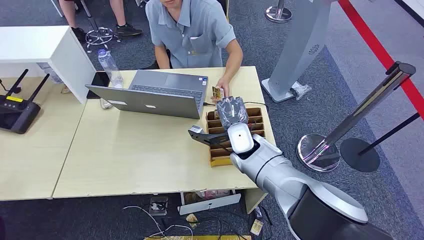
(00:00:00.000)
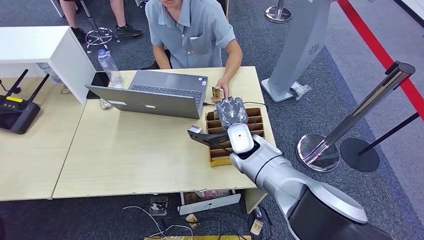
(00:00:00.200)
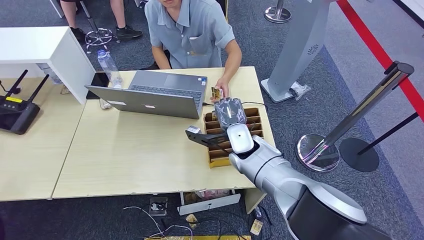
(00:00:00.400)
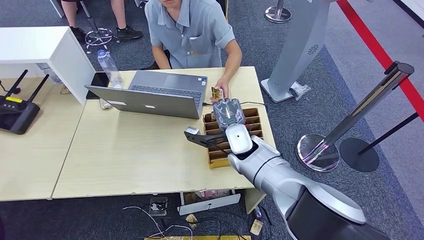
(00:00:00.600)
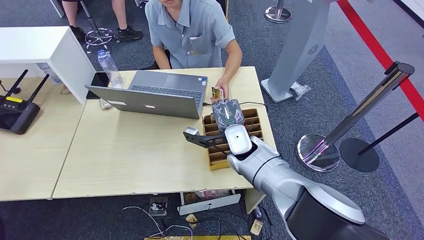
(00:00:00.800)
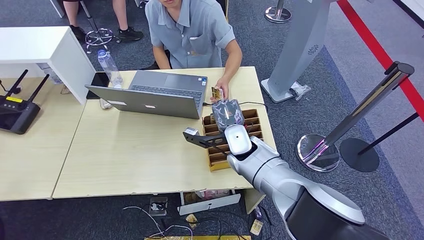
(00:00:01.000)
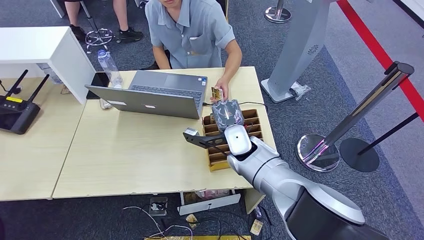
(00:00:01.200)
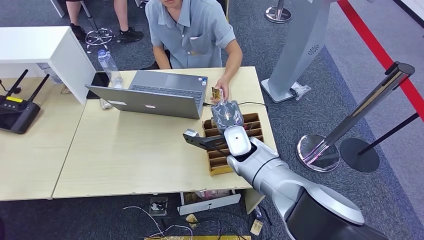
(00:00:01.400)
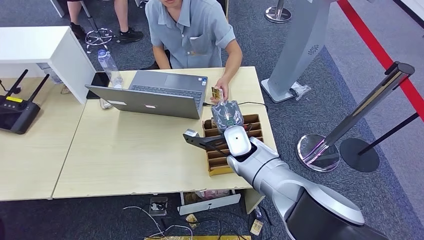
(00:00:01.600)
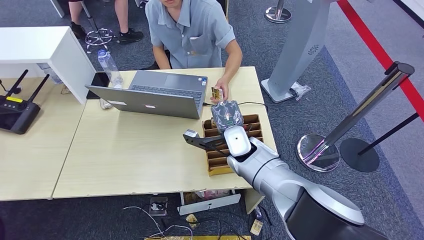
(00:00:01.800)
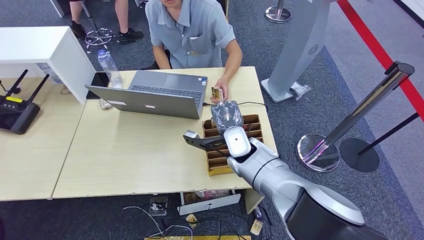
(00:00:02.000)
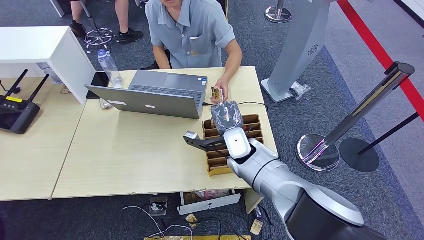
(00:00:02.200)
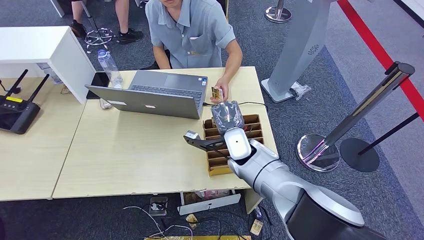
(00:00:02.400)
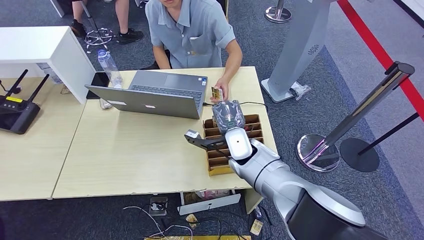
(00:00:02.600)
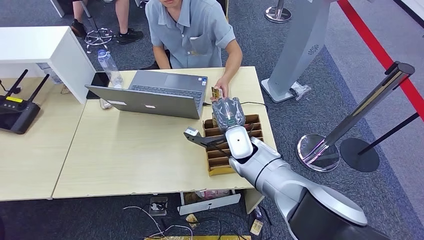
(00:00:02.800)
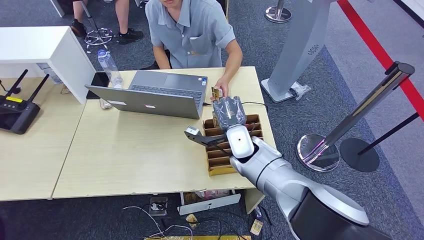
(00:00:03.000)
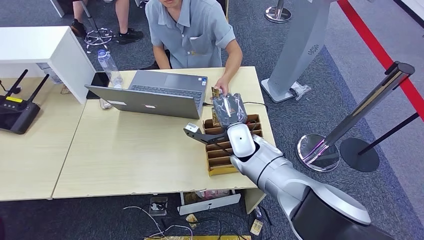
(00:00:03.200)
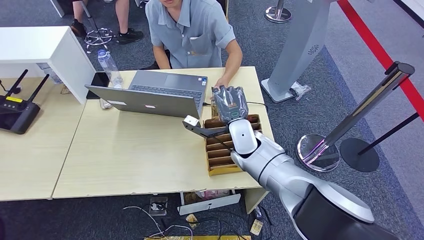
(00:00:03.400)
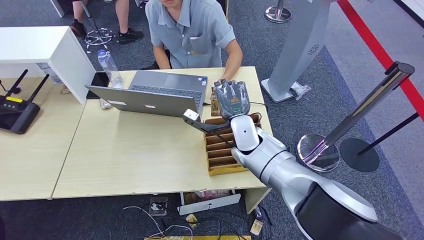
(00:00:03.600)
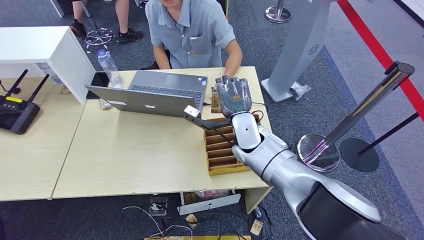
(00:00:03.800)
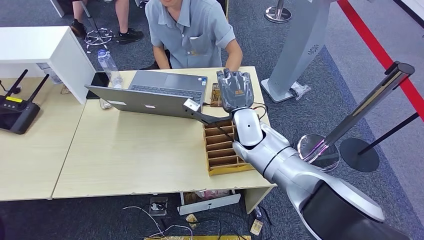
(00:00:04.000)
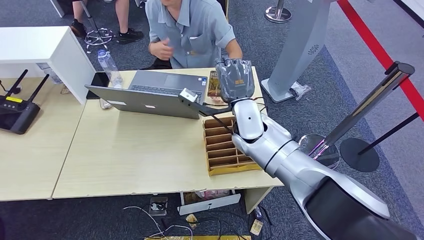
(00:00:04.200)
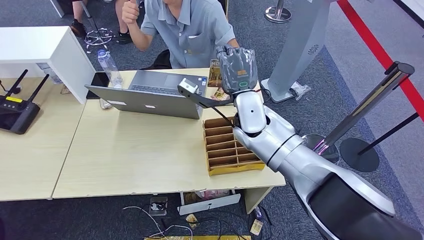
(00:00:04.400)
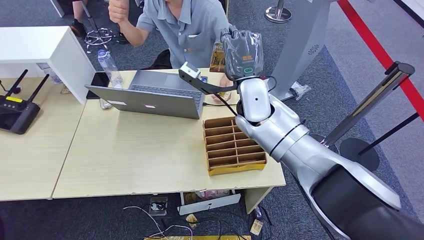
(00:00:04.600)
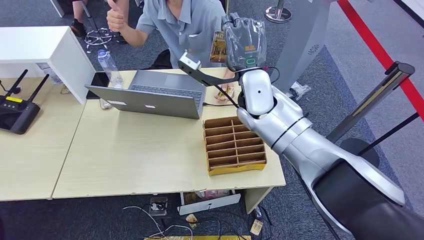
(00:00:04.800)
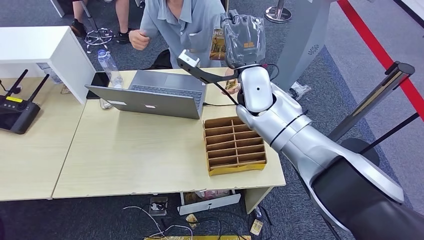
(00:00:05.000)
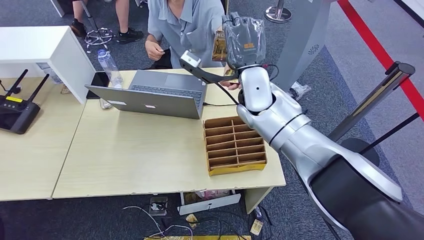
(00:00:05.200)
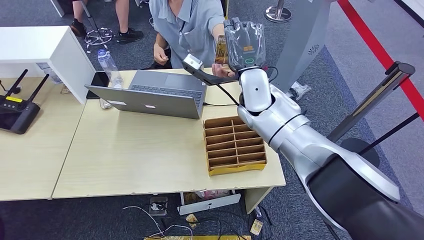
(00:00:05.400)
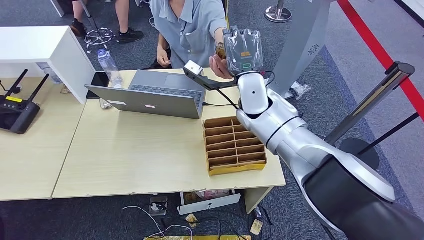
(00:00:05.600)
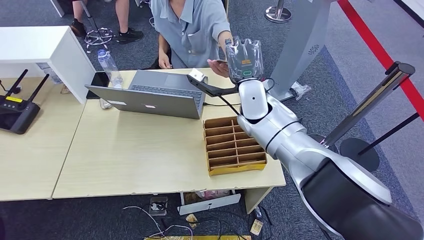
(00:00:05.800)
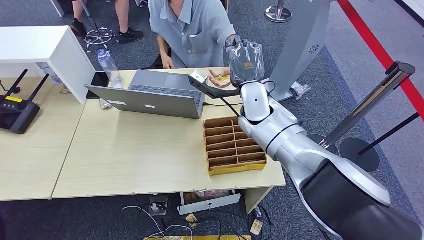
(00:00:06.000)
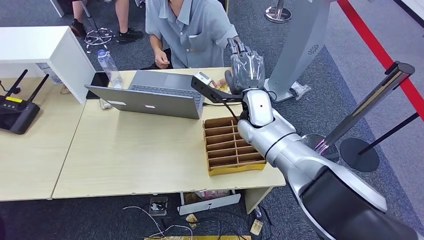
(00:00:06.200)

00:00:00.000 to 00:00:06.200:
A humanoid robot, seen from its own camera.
Step, 00:00:00.000 to 00:00:03.000: Pick up the room card from the card holder.
Step, 00:00:05.400 to 00:00:06.200: Hand the room card to the target.
00:00:01.600 to 00:00:03.200: There are only small adjustments of the hands.
00:00:03.200 to 00:00:04.600: The right hand travels upward by roughly 15 cm.
00:00:04.600 to 00:00:06.200: The right hand shifts some 5 cm downward.
